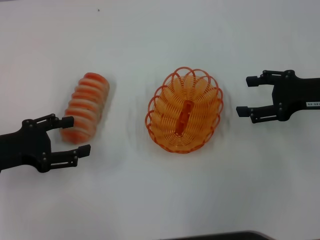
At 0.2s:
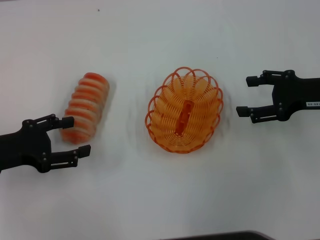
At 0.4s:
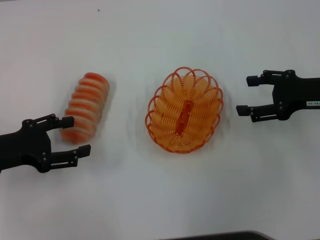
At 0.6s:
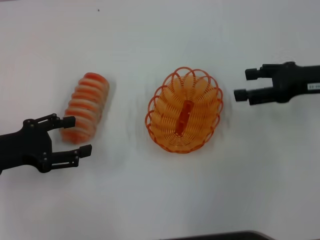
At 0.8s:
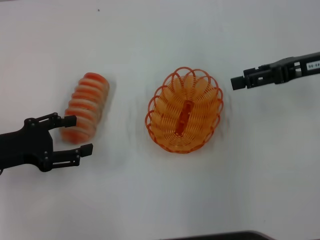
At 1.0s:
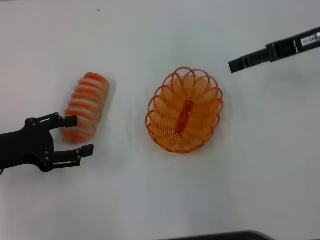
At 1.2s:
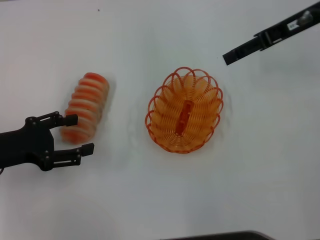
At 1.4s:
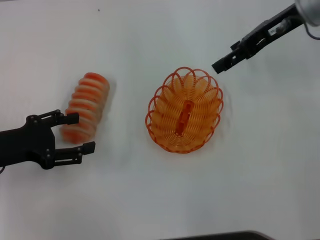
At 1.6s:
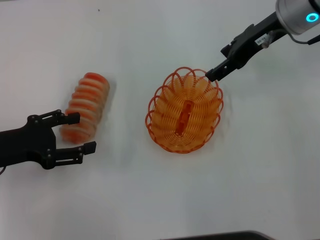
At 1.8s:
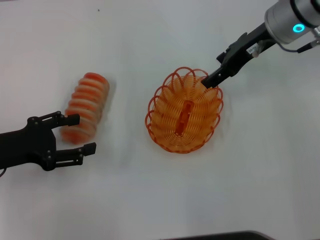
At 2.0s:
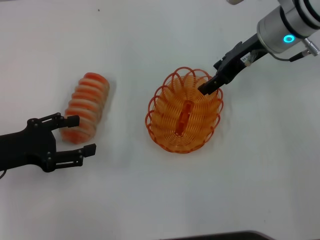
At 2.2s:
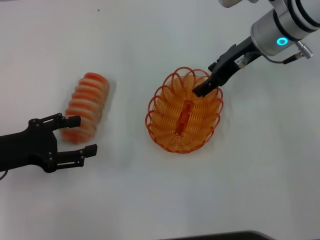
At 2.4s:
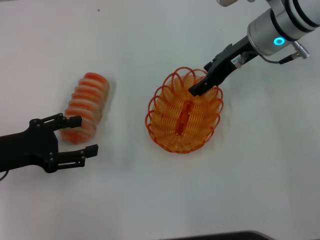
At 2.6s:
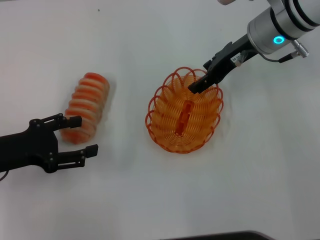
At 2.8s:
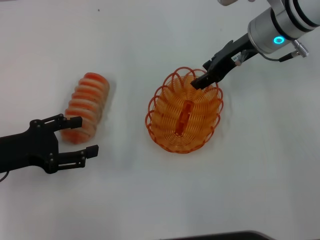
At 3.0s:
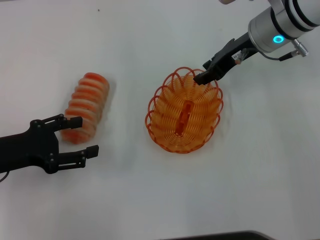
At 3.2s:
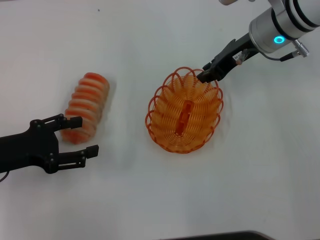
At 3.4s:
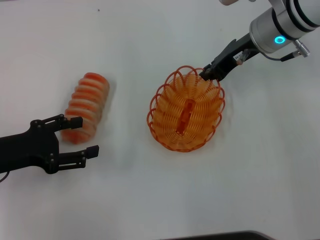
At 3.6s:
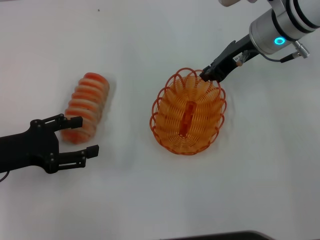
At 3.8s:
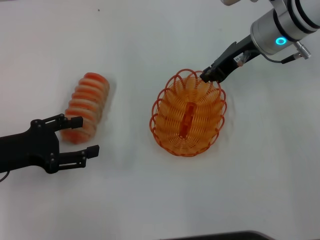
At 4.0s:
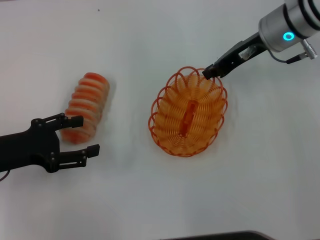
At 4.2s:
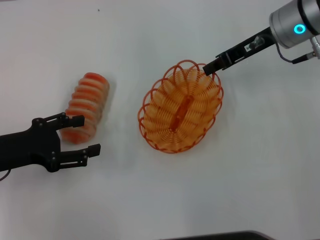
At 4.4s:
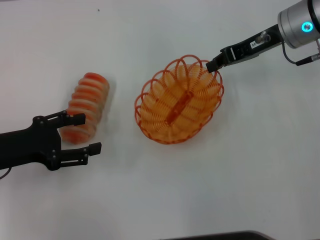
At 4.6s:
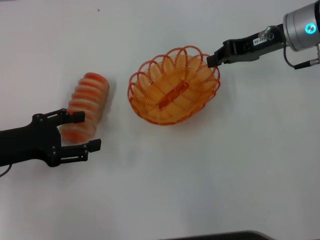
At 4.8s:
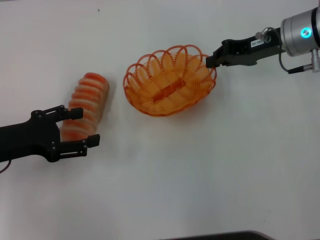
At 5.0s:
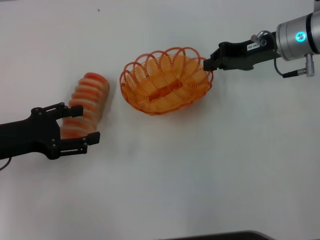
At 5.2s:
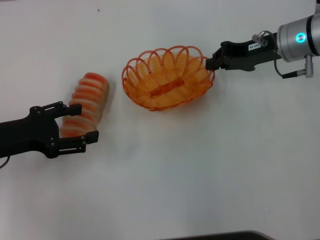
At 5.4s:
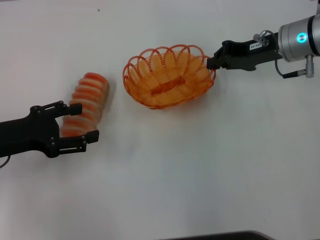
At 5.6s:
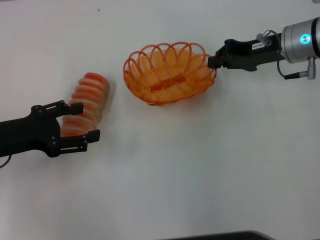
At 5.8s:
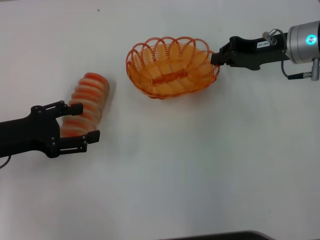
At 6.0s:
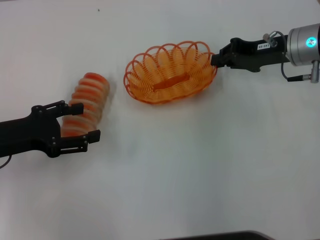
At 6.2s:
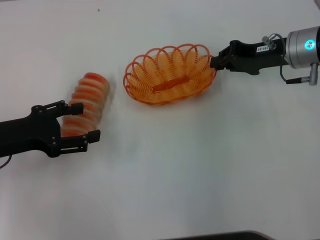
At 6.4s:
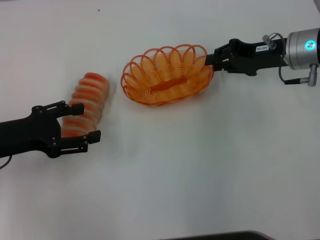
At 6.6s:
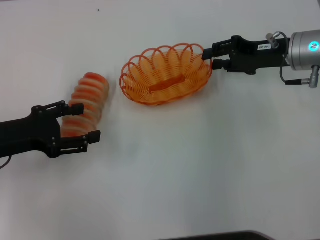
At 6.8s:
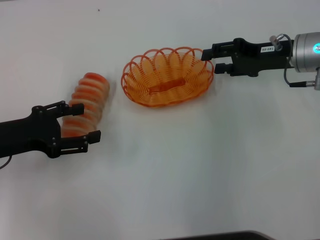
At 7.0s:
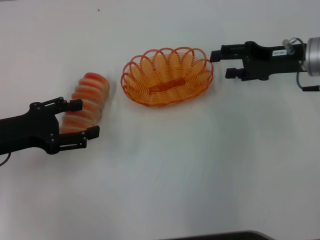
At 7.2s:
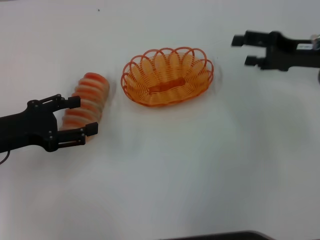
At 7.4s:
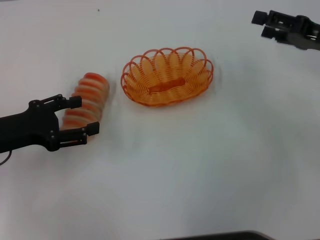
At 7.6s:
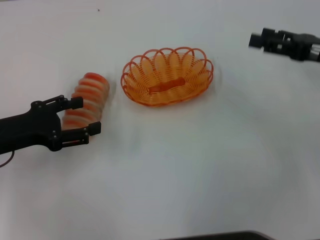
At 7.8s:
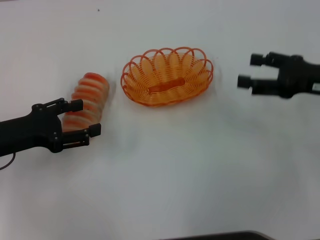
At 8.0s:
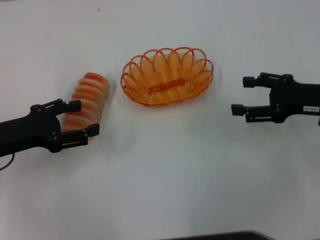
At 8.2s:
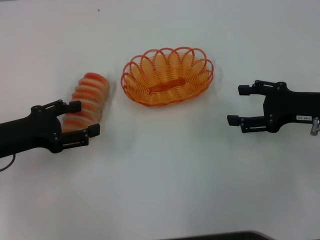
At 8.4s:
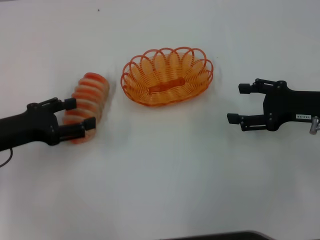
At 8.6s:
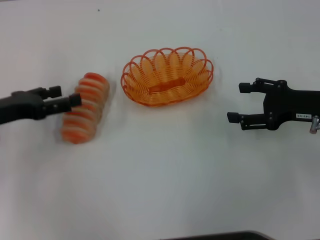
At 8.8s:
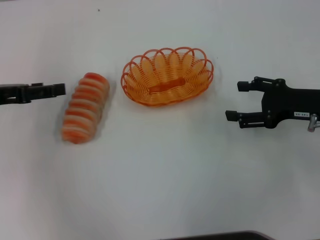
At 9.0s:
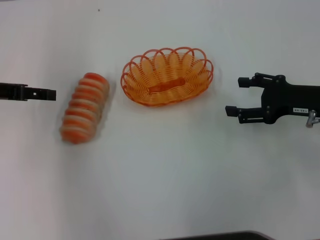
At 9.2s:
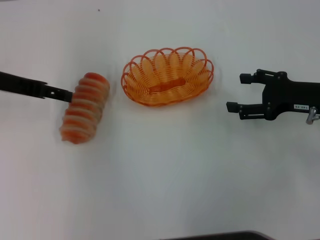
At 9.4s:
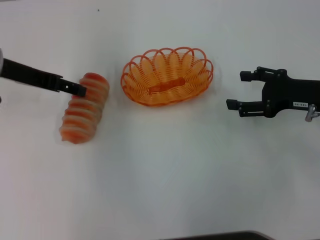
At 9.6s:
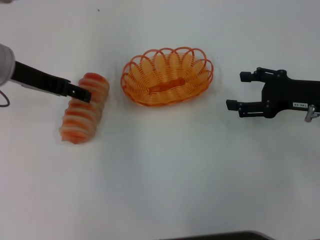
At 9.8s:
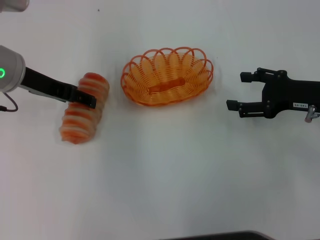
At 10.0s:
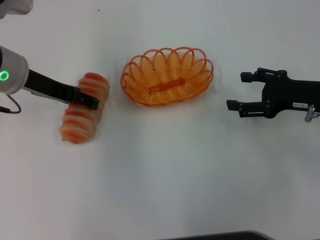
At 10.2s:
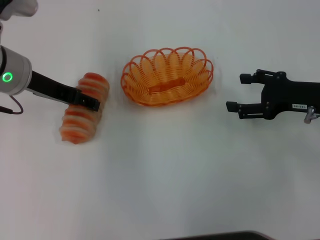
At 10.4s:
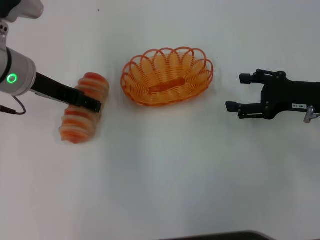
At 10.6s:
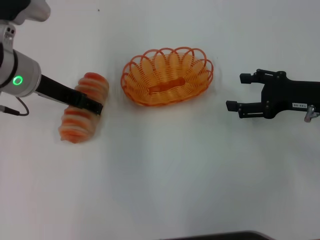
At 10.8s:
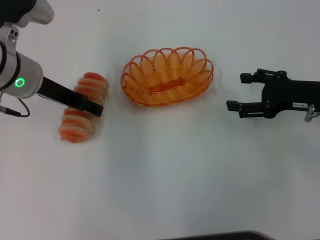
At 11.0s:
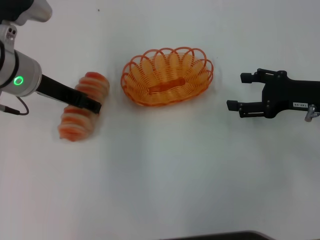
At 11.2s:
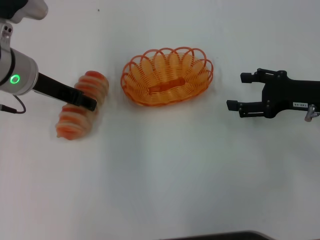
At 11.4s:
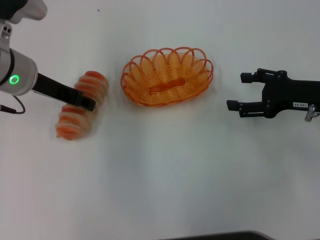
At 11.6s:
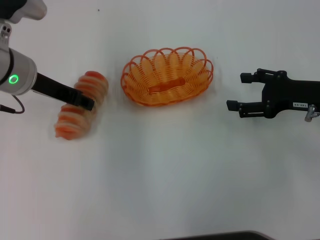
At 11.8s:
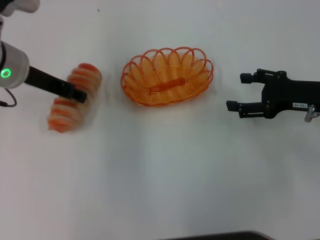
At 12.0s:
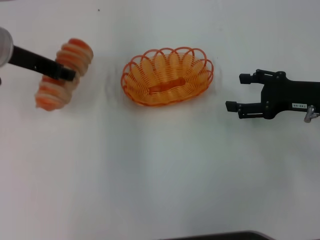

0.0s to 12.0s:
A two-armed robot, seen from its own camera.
Step, 0.0s to 4.0s: Pick up the basket with the right gripper.
Step, 4.2s to 6.8s: Place the basket in the center of view with the right gripper.
Step, 7.2s to 11.6s: Pick up the long bread with the left gripper.
0.0s to 1.6s: The right gripper moves to the left, forward and upward, about 15 cm.
1.6s to 3.0s: The right gripper ends up some 5 cm from where it was.
3.0s to 4.4s: The right gripper closes its fingers.
4.4s to 6.0s: The right gripper ends up roughly 5 cm from where it was.
6.0s to 7.6s: The right gripper moves backward and to the right, approximately 10 cm, and opens up.
7.6s to 9.0s: The left gripper heads forward and upward, covering roughly 10 cm, while the right gripper shifts by about 5 cm.
9.0s to 10.4s: The left gripper goes some 10 cm to the right.
10.4s to 12.0s: The left gripper closes its fingers.

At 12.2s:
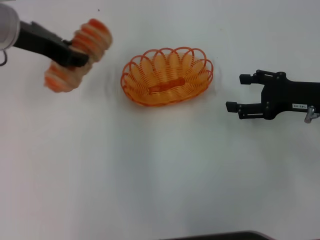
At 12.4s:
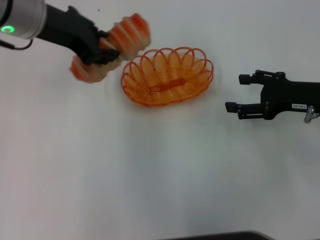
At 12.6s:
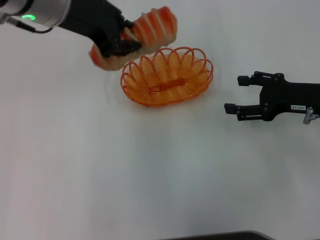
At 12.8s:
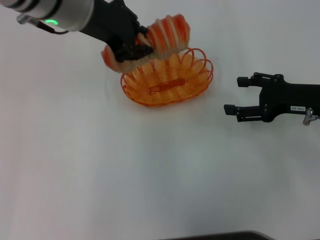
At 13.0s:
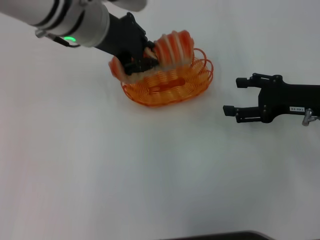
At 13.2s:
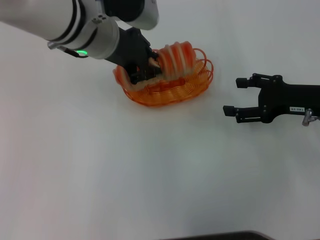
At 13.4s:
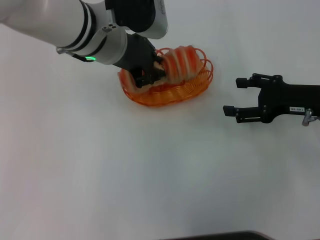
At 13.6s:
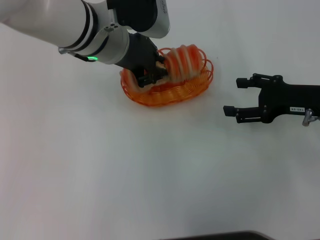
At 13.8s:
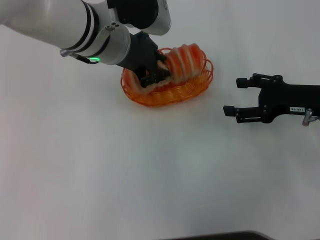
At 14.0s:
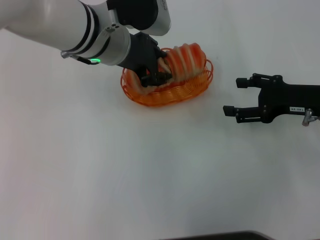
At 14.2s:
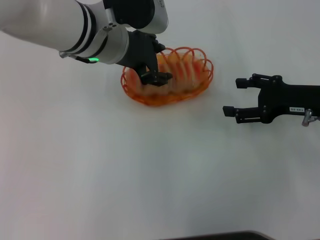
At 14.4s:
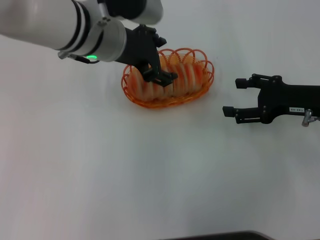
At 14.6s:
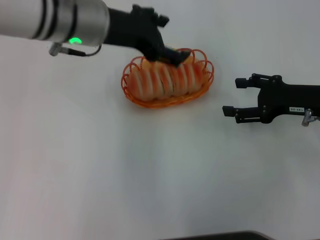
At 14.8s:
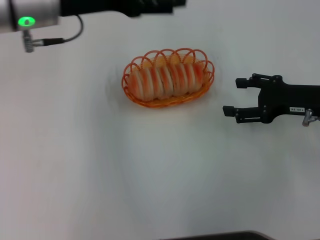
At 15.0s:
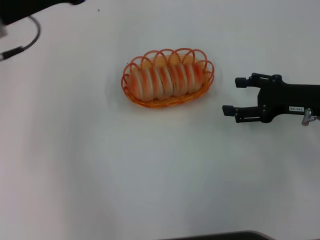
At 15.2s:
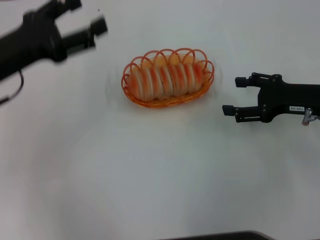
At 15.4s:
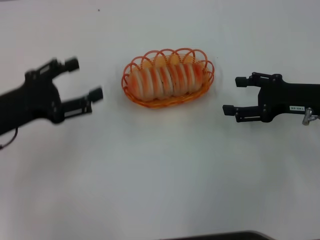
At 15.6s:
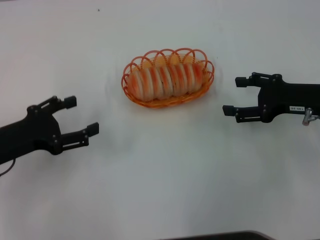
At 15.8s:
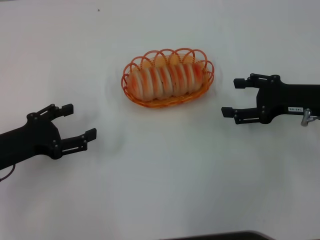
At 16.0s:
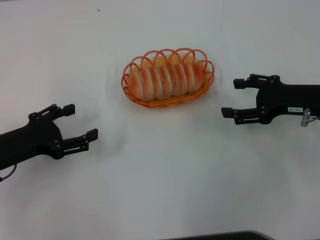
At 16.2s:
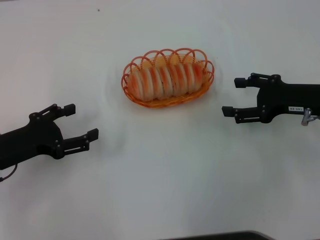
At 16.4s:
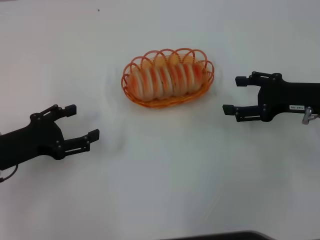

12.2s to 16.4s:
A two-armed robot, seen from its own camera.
Step, 12.2s to 14.4s: Place the long bread into the basket with the left gripper.
12.2s to 13.6s: The left gripper heads to the right, covering about 10 cm, and closes up.
13.6s to 15.0s: The left gripper moves to the left, some 15 cm, and opens up.
15.0s to 16.4s: The left gripper heads downward, backward and to the left, covering approximately 20 cm.
